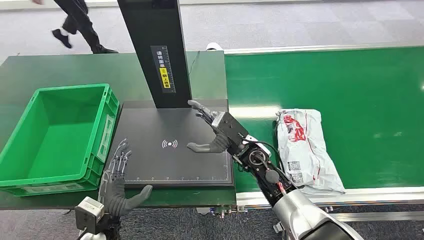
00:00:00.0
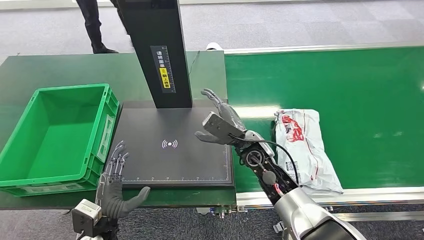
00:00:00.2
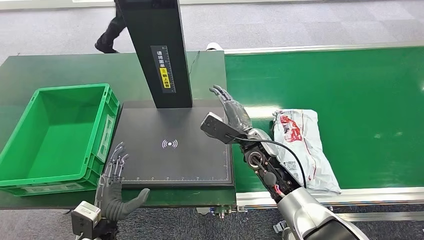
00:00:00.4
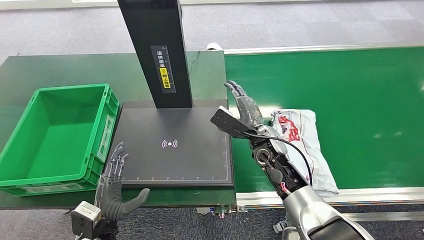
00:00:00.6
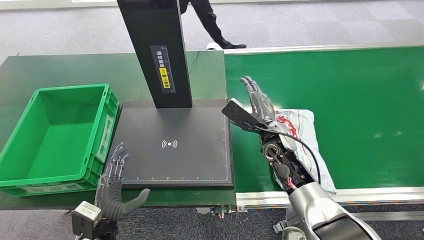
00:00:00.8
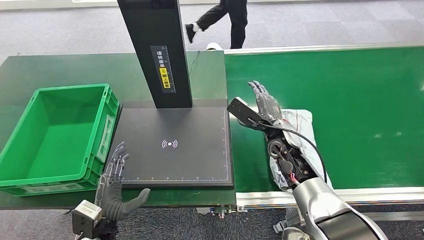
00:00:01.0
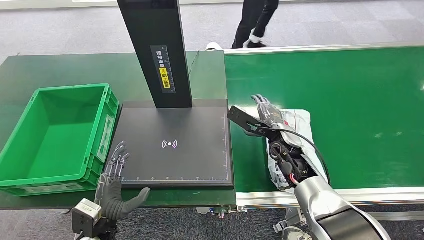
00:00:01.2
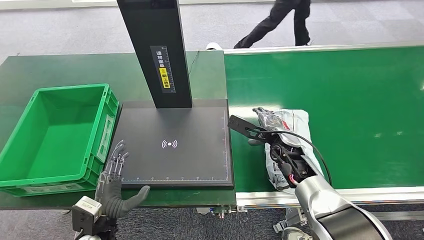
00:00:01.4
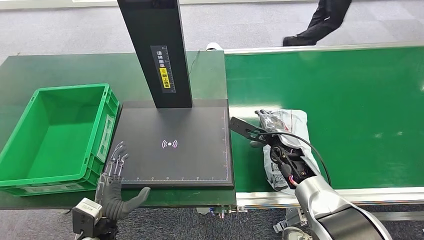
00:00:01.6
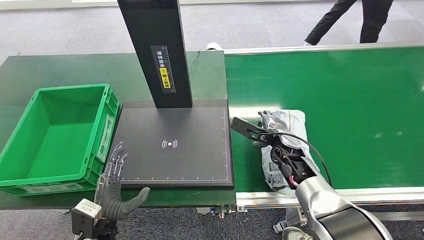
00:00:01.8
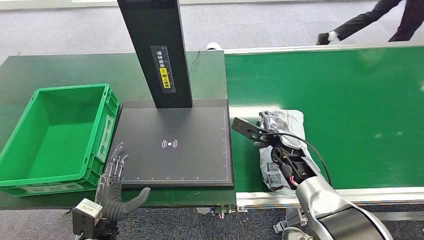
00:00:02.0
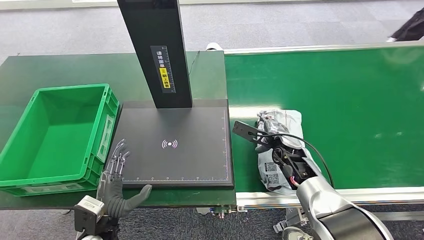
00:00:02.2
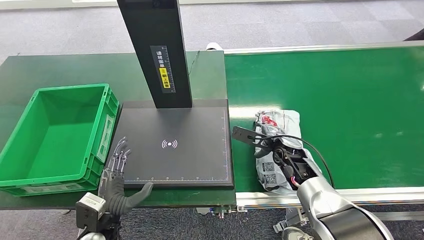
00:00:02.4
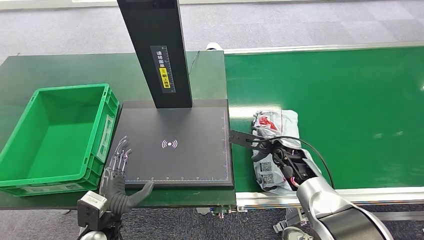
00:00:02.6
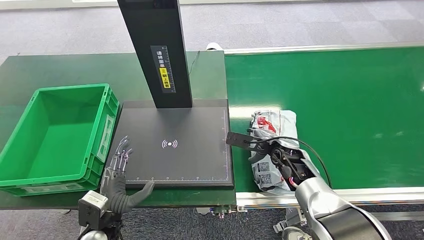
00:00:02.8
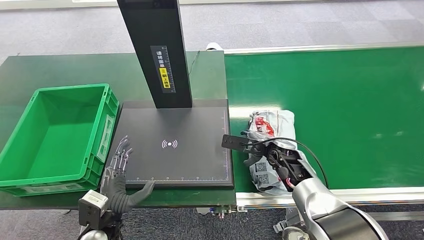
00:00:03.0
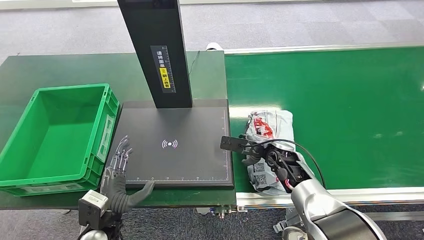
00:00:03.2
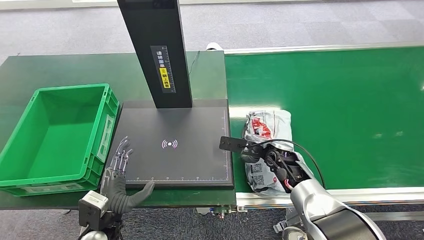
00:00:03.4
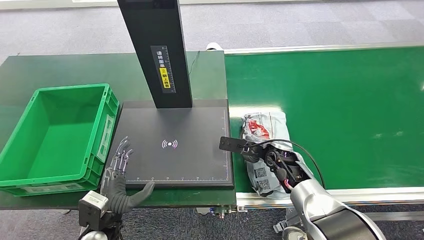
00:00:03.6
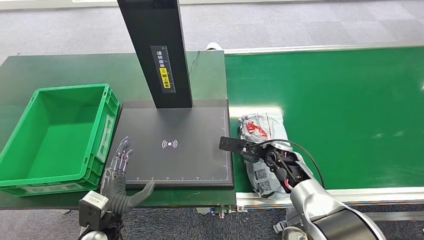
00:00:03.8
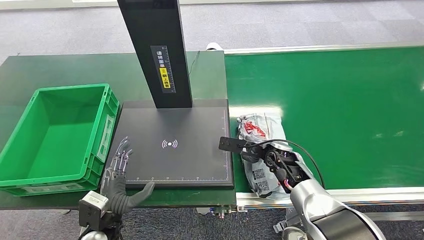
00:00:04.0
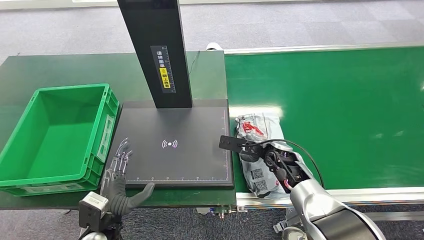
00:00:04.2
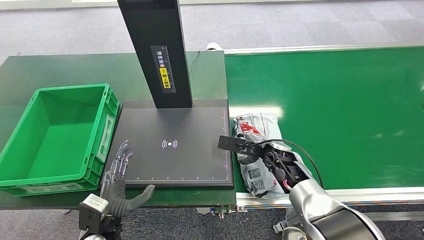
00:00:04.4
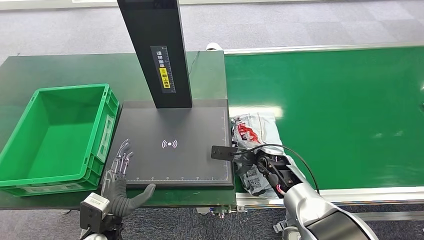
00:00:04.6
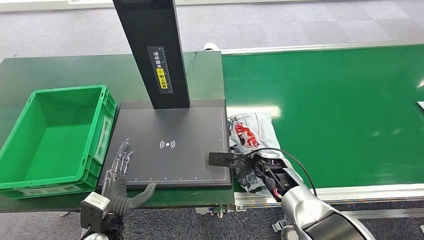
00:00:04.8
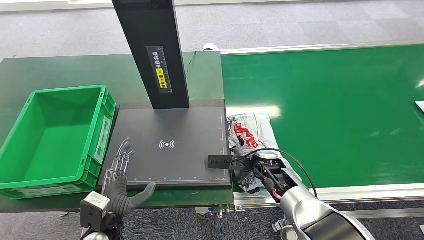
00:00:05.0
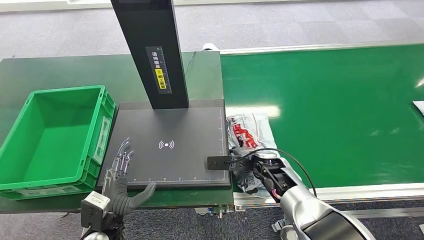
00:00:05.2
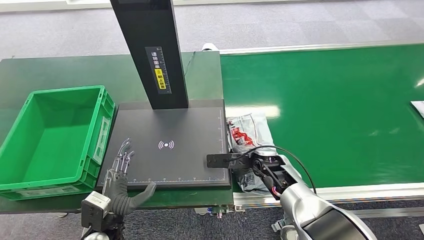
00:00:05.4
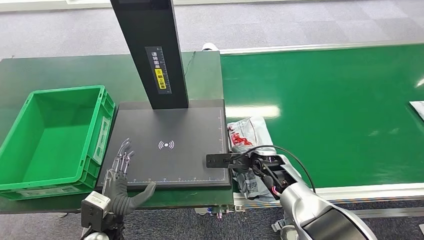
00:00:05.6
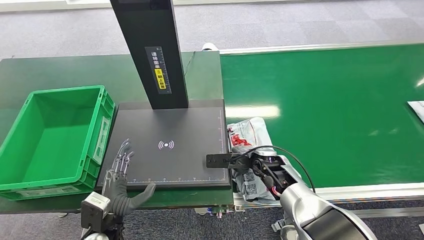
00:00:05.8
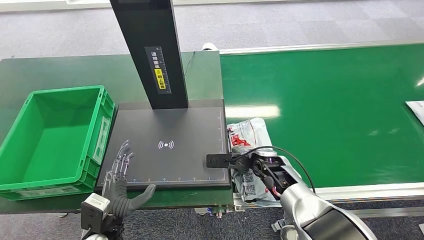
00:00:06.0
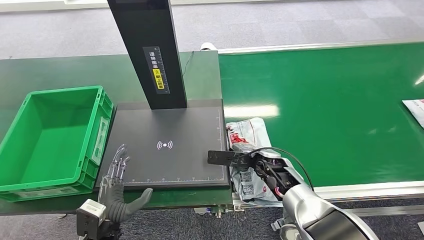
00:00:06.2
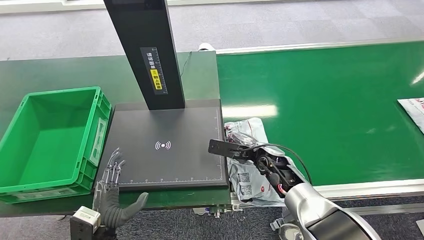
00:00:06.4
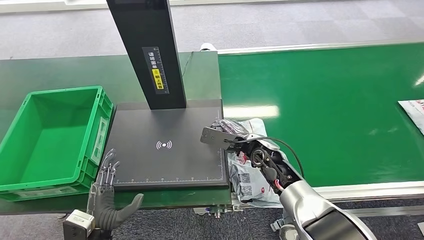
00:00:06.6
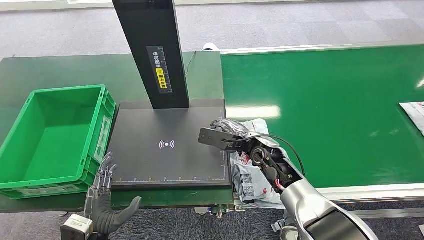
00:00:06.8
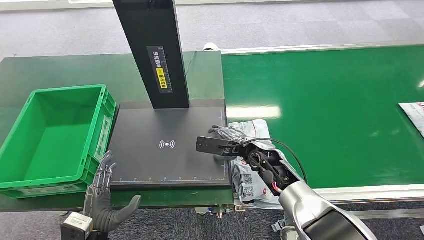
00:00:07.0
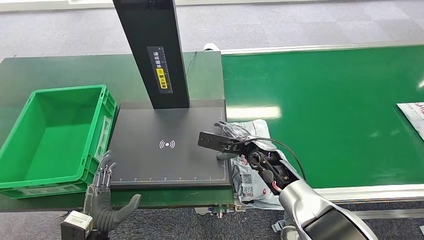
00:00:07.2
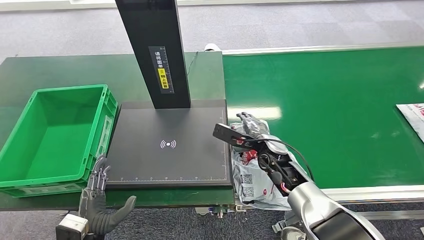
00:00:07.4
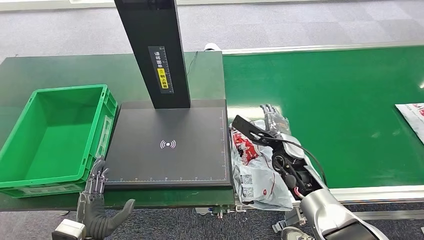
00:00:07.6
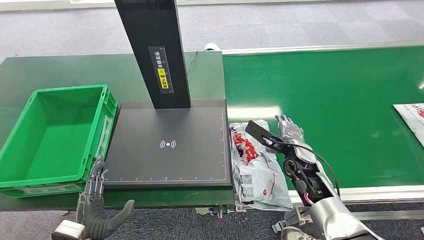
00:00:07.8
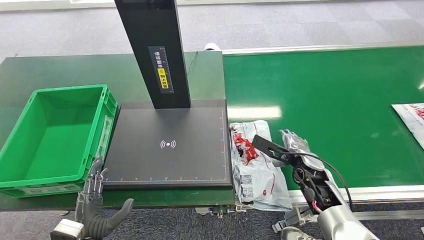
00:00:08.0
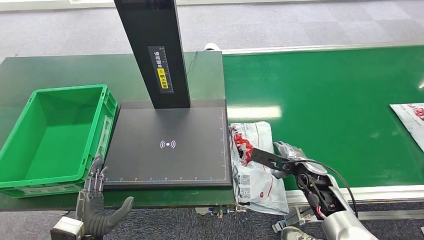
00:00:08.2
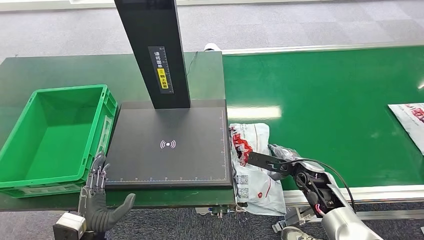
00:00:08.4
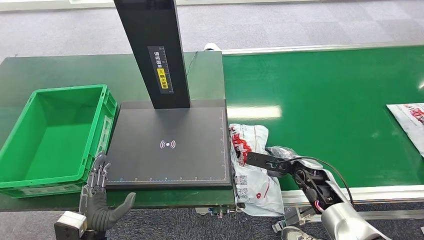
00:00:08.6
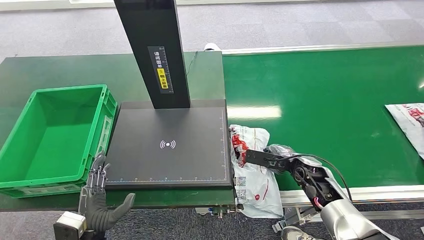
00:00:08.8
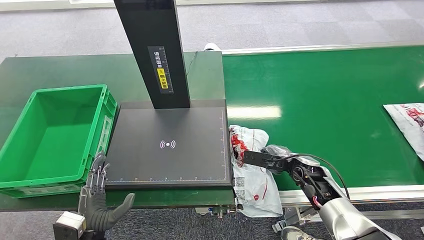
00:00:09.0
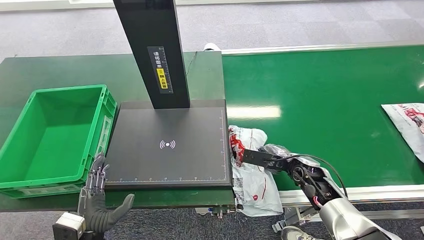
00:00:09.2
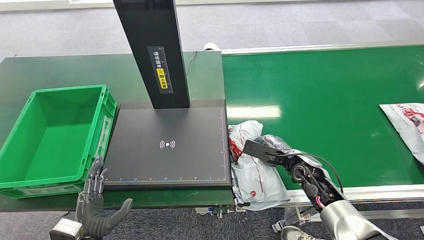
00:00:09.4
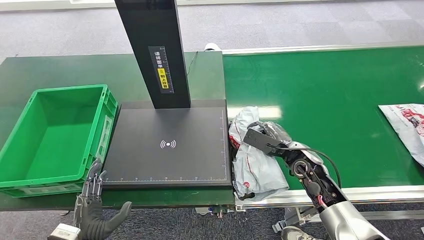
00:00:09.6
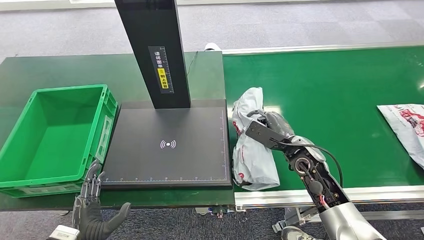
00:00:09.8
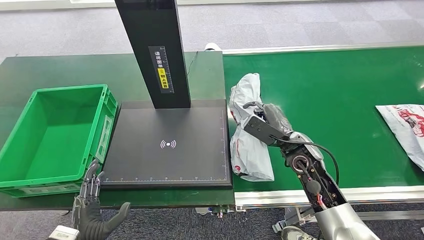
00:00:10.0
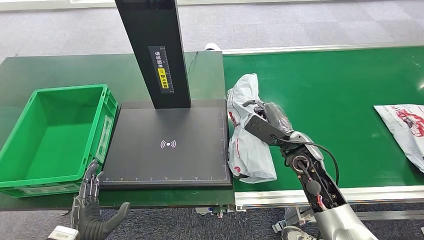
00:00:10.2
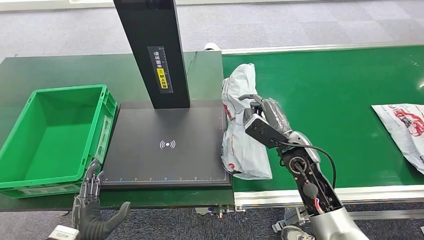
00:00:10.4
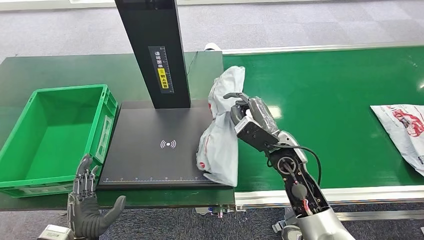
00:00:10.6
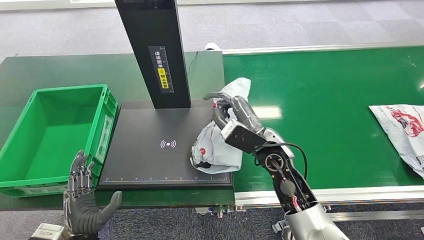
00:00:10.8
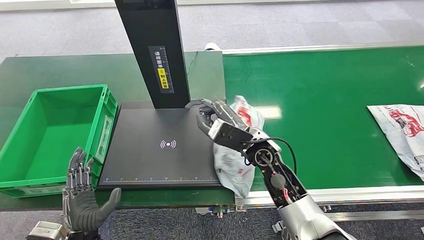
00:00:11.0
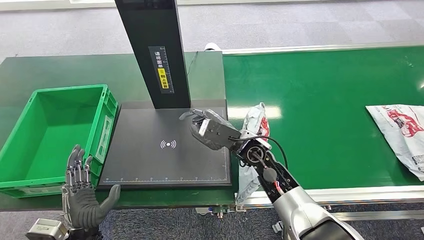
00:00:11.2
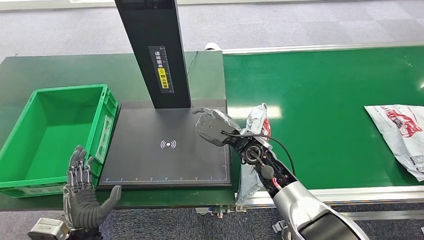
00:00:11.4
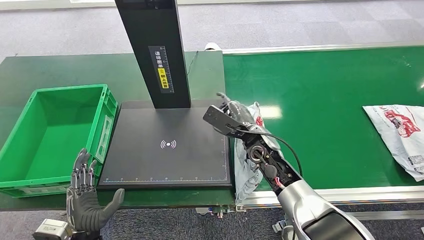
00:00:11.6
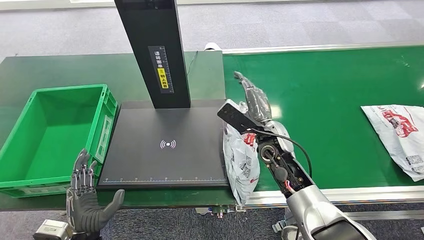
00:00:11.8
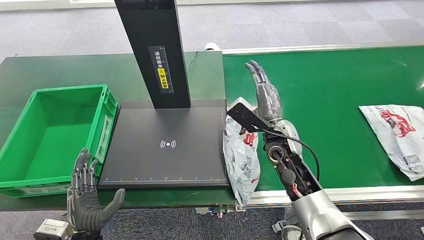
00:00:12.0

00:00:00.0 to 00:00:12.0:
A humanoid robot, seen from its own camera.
00:00:03.0 to 00:00:04.4: Both hands stay about where they are.
00:00:04.4 to 00:00:06.0: The hands make only small movements.
00:00:07.6 to 00:00:09.0: The right hand moves to the right, about 5 cm.
00:00:09.0 to 00:00:10.4: The right hand is displaced upward and to the left by some 10 cm.

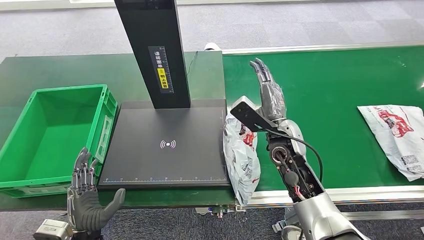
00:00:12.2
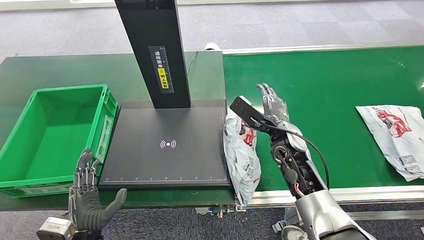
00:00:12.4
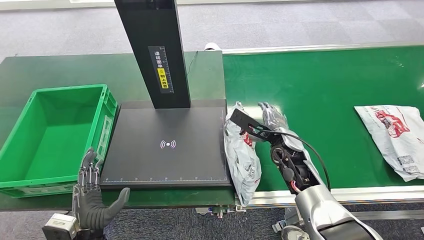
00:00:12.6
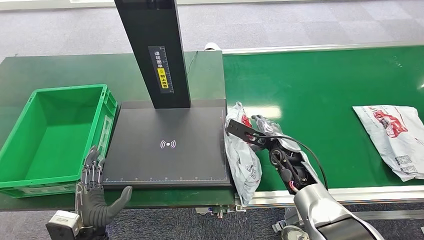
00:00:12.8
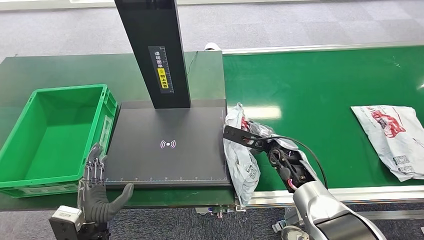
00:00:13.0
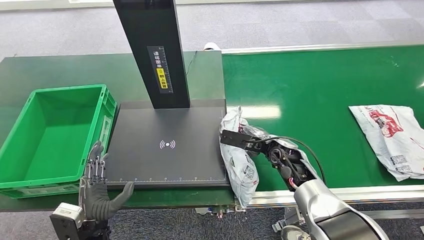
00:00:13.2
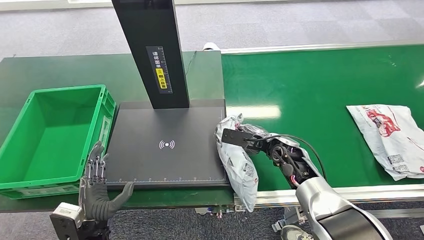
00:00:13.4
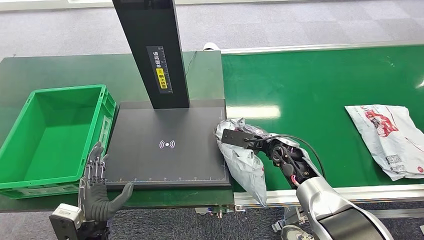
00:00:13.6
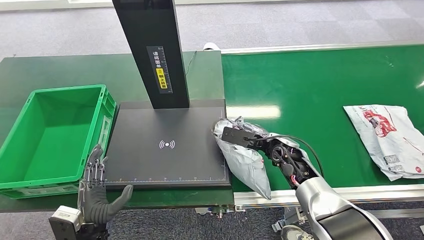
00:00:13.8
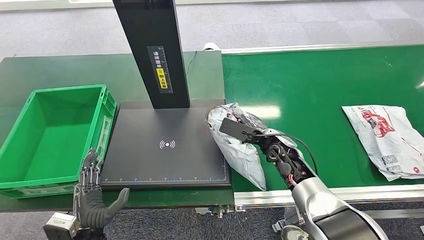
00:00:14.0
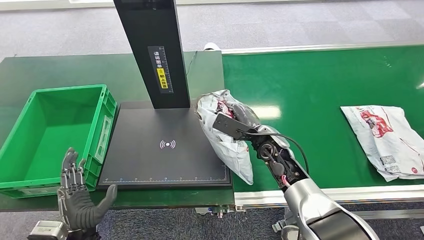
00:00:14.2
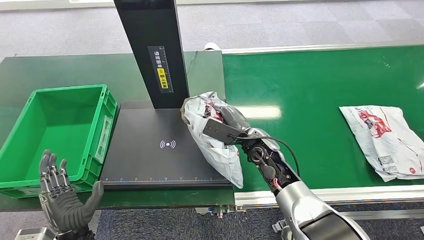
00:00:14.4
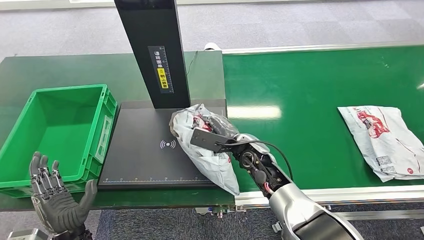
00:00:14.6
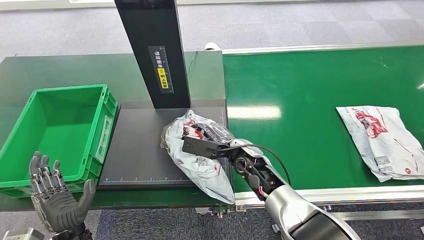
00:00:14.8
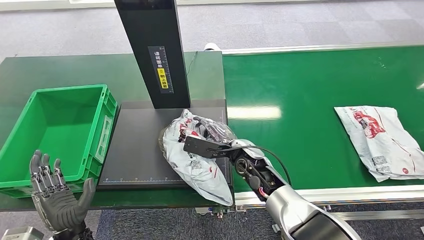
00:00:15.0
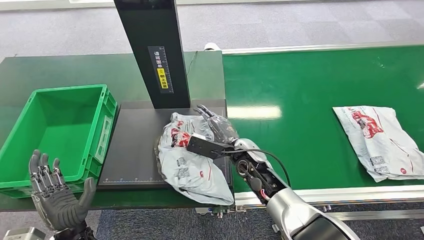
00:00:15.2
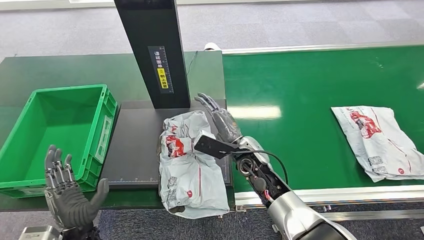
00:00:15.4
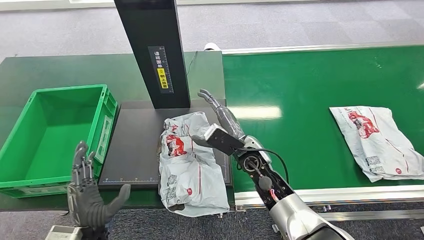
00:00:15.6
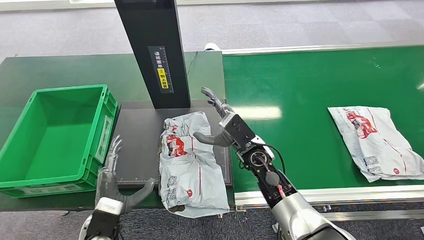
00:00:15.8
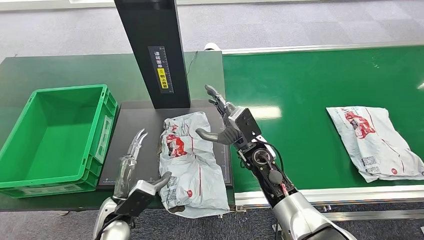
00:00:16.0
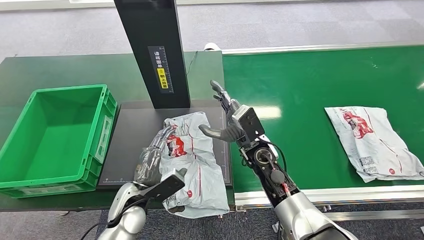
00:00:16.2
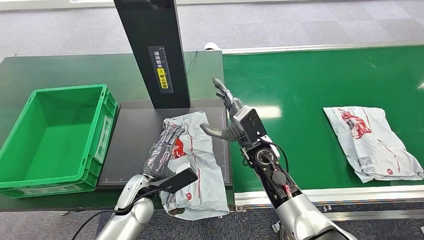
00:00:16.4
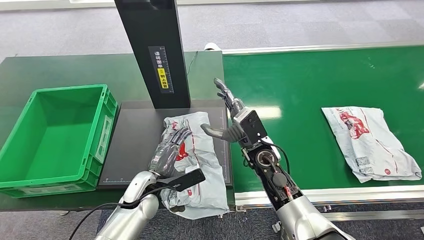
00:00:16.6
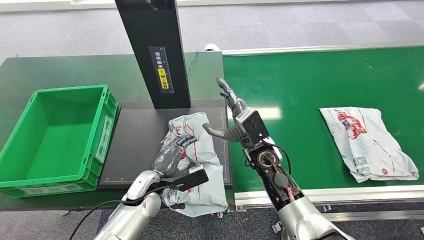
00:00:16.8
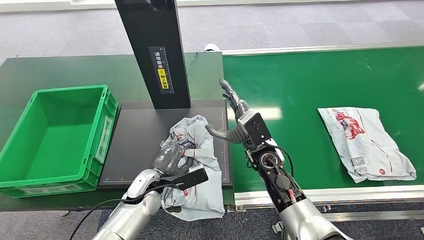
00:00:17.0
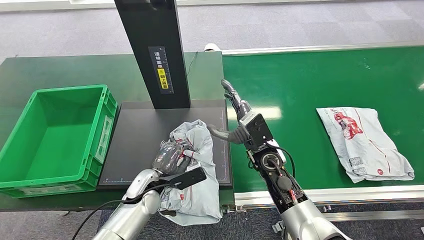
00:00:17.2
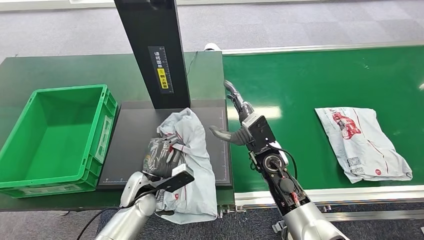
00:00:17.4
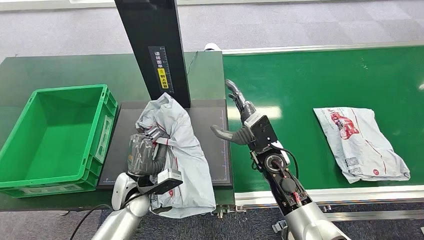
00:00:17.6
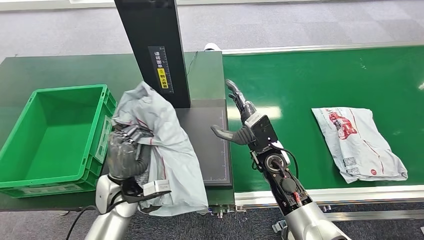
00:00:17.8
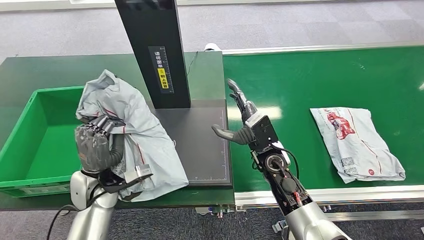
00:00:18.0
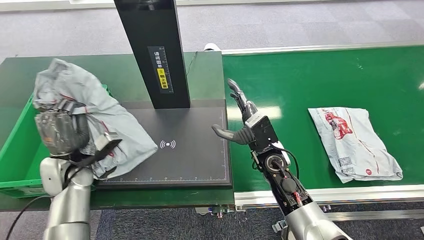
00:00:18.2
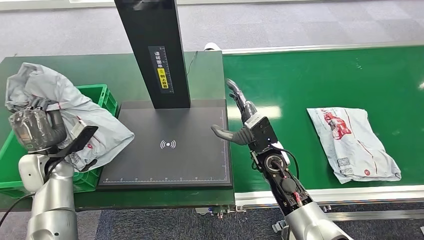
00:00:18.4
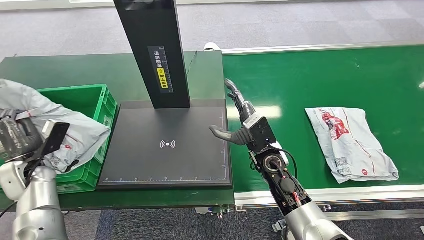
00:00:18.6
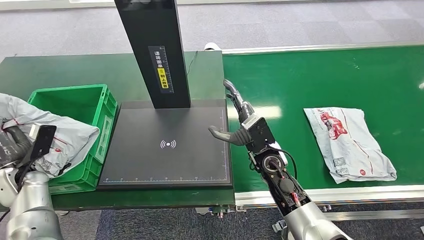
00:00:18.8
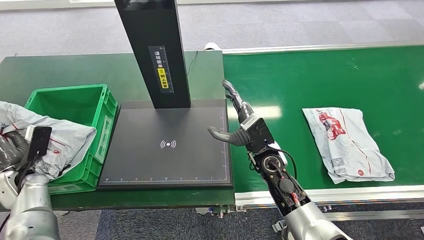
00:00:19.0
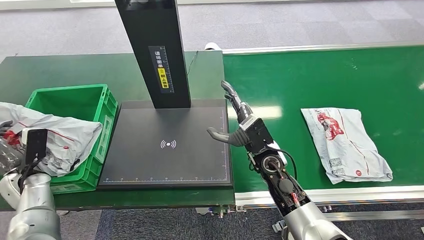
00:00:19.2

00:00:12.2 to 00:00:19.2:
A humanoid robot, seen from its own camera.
Step, 00:00:14.2 to 00:00:15.8: Place the package onto the inbound machine.
Step, 00:00:16.2 to 00:00:18.2: Pick up the package from the inbound machine.
00:00:12.2 to 00:00:13.6: The right hand shifts about 5 cm downward.
